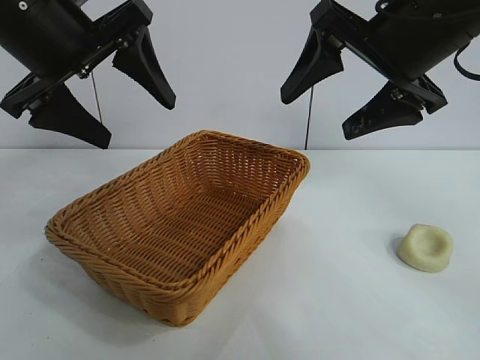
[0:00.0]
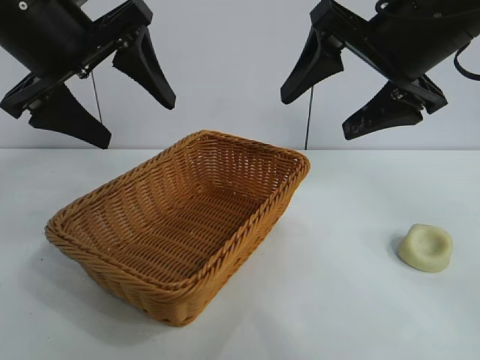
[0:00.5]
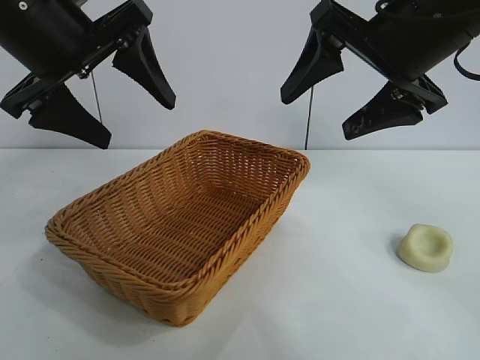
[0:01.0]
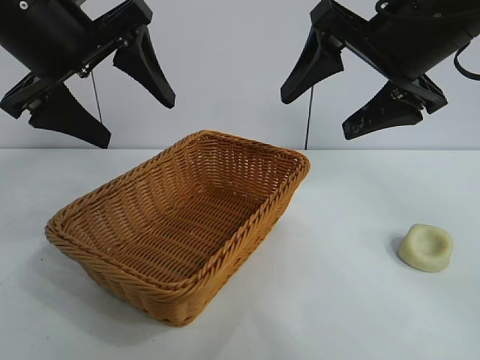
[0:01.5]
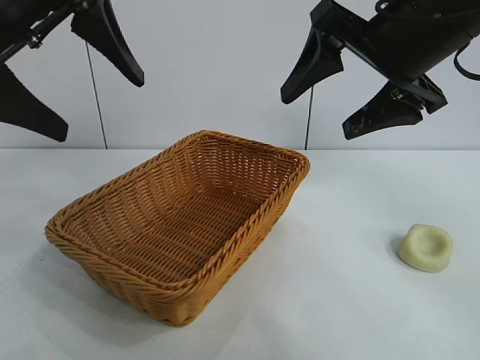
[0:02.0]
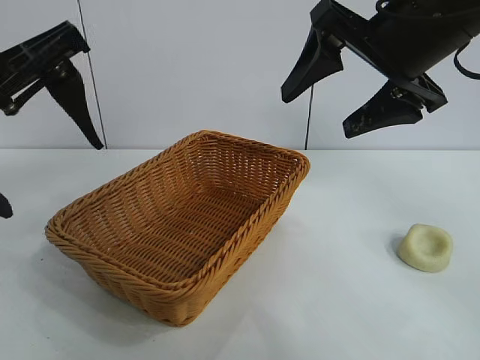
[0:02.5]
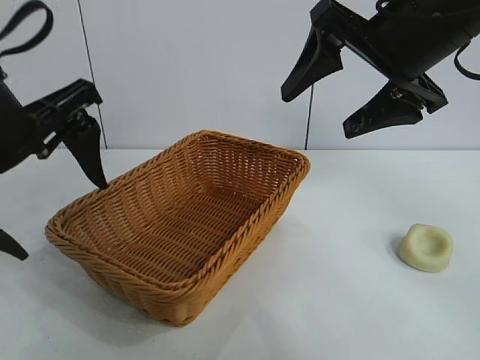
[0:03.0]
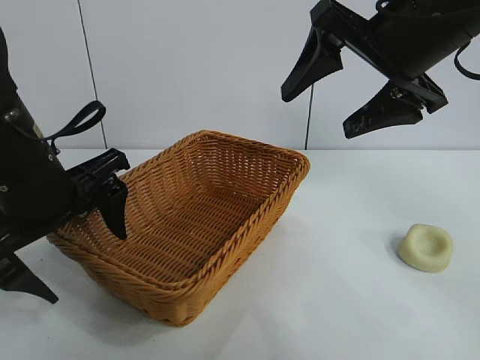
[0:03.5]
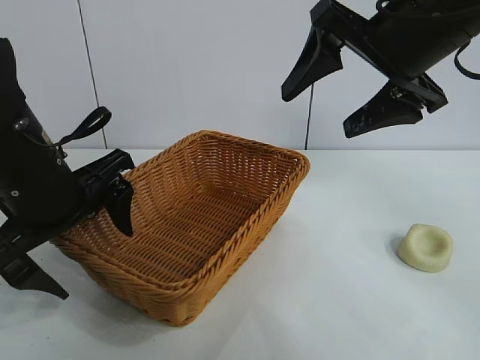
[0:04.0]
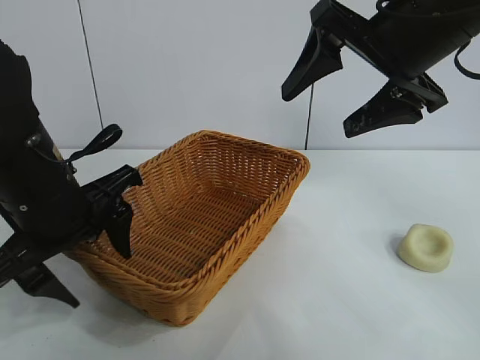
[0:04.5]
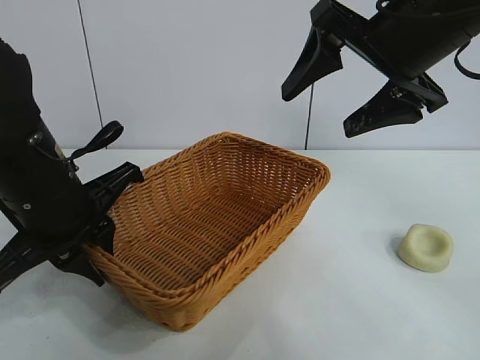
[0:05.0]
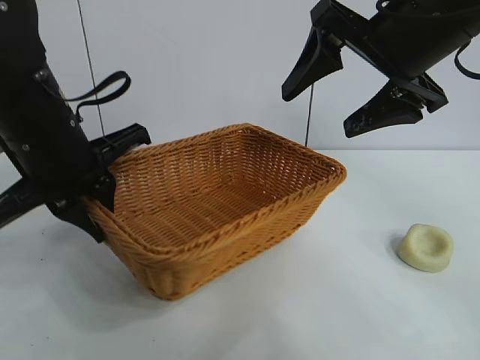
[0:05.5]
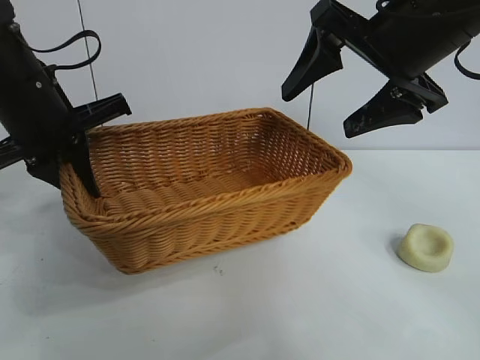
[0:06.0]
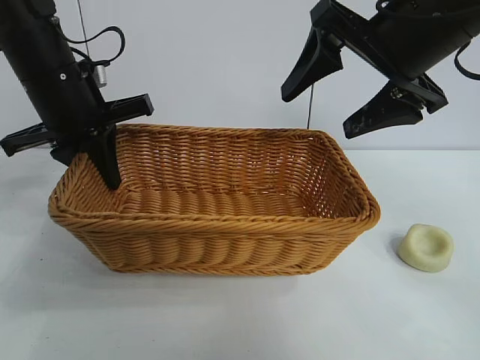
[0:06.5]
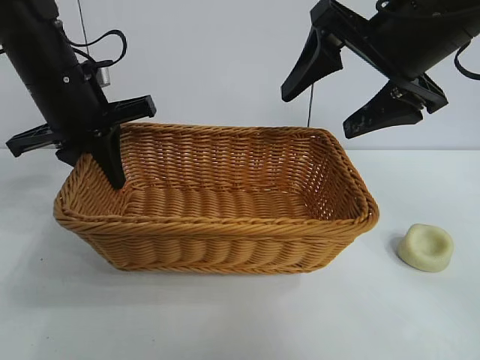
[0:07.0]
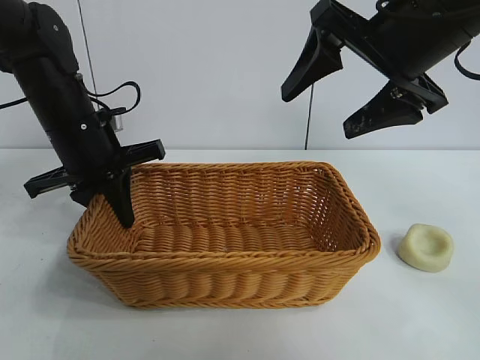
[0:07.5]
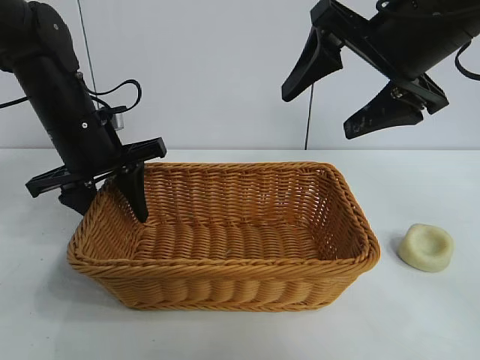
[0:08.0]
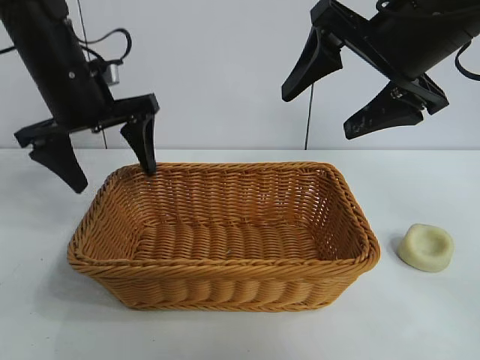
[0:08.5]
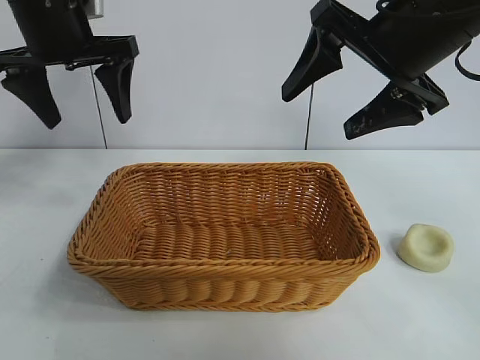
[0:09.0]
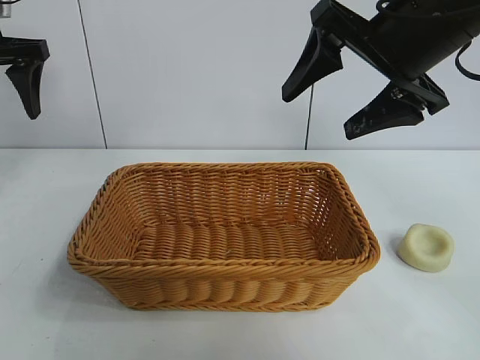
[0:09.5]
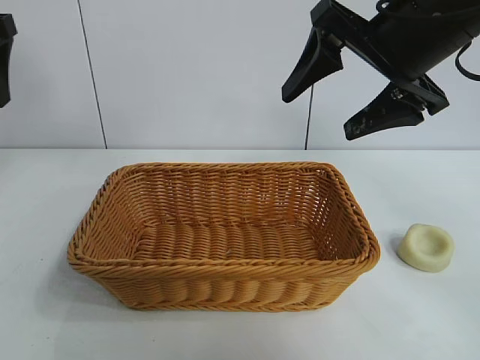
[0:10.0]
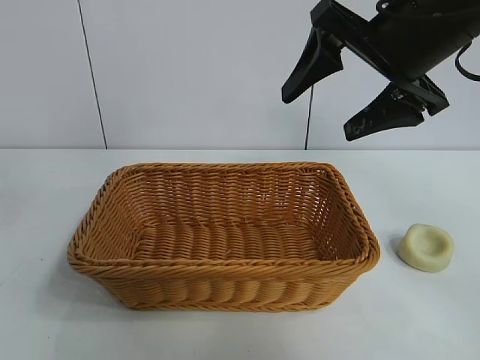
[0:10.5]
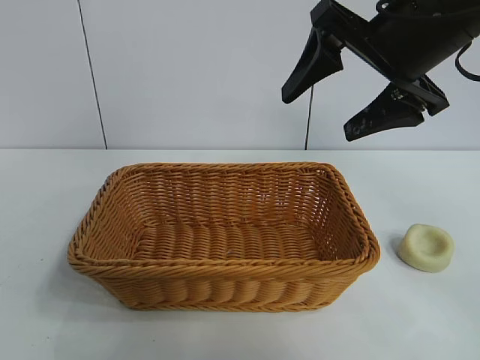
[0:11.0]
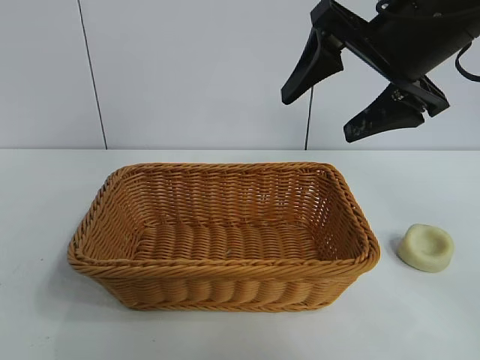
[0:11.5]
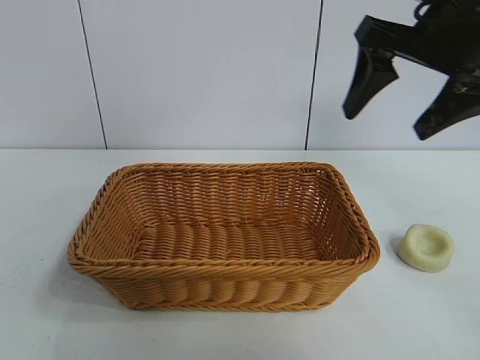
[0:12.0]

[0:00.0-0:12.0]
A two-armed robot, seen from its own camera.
Task of the whole recording: pick up the egg yolk pastry and put it into the basket.
Step, 0:01.5 to 0:05.0: Grasp the basket with left gripper.
Step, 0:05.5 to 0:08.0: Place the basket in the center of view with left gripper.

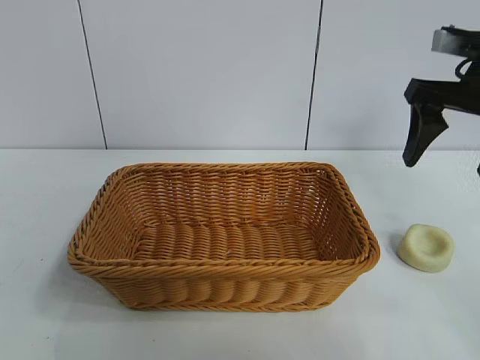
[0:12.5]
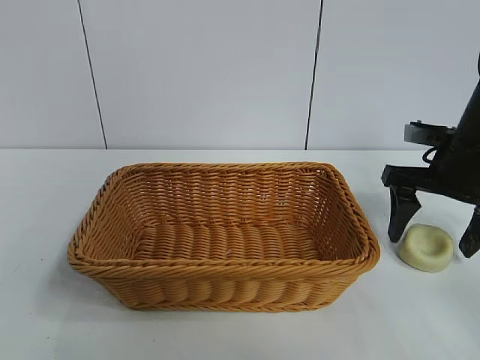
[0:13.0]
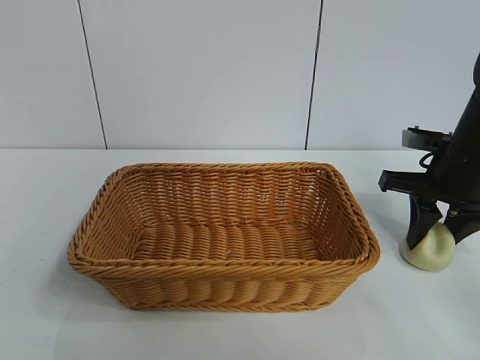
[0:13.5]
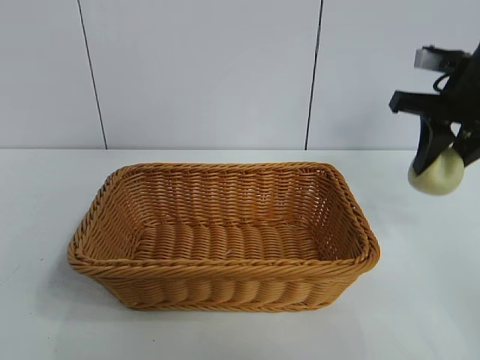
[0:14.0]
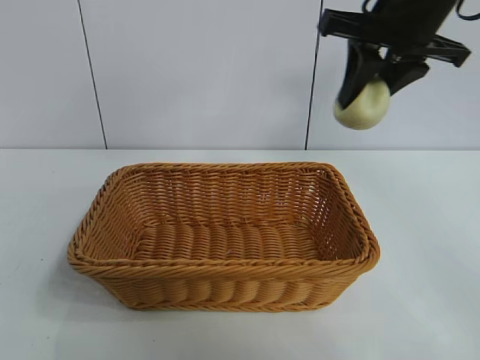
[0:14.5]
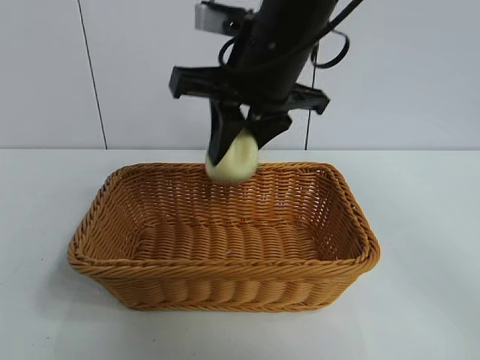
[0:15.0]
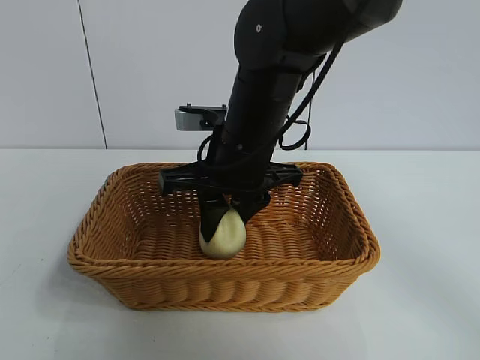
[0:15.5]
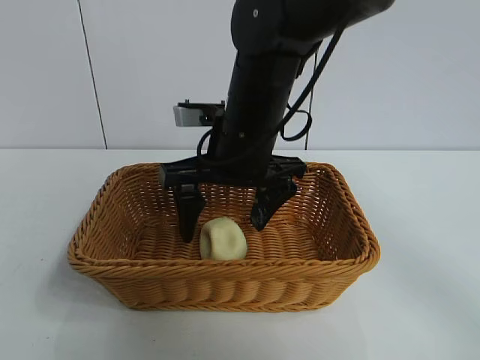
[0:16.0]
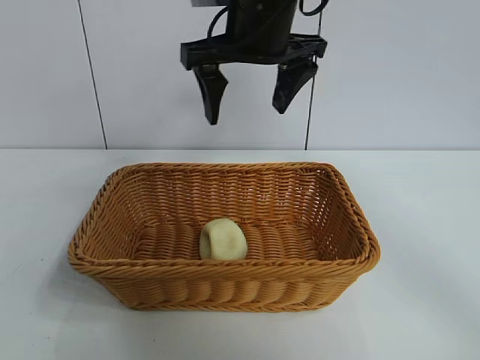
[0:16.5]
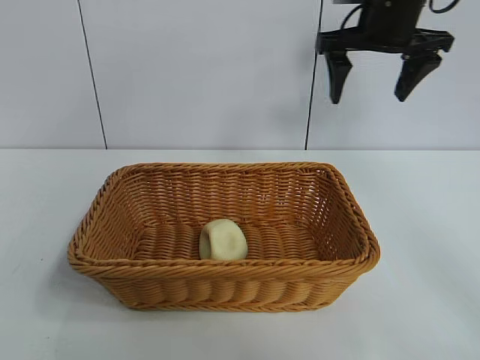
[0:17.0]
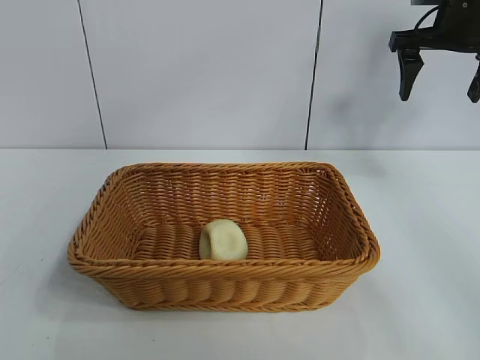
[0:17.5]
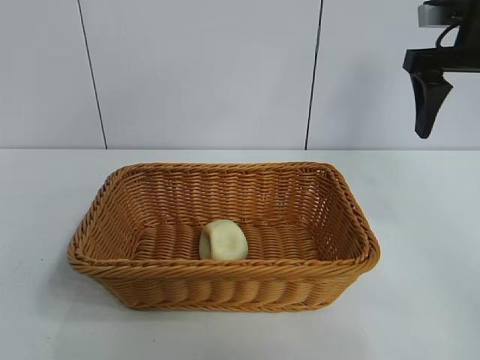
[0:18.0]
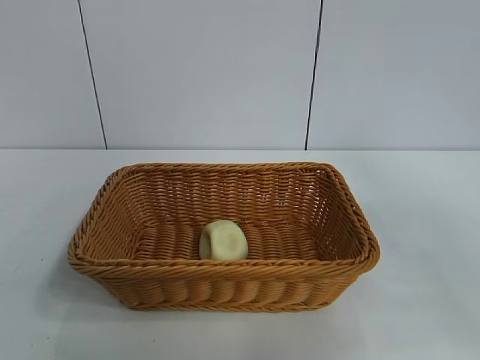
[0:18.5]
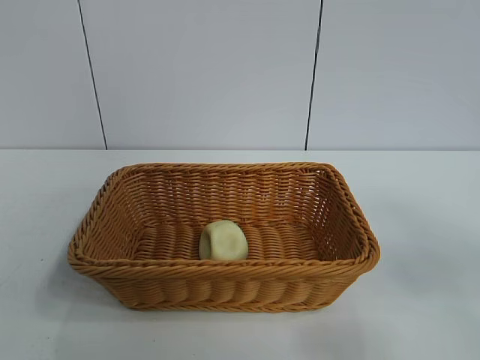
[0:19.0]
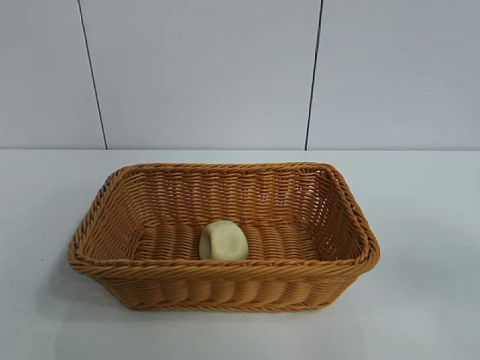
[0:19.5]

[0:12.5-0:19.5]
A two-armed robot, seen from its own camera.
Task of the whole recording: pick up the egg yolk pastry and put it into the basket.
Step, 0:14.0 to 0:16.0: Place the egg yolk pastry in the basket with right gripper.
